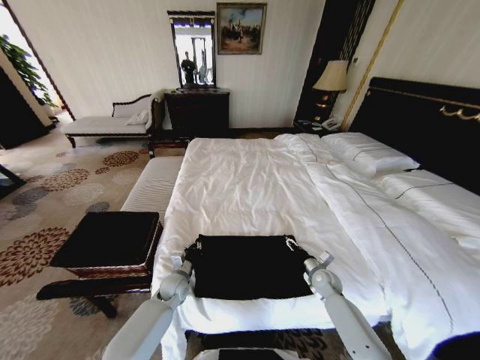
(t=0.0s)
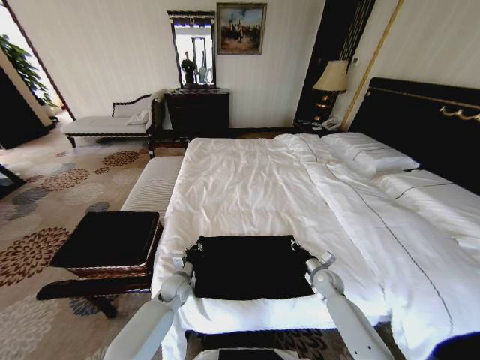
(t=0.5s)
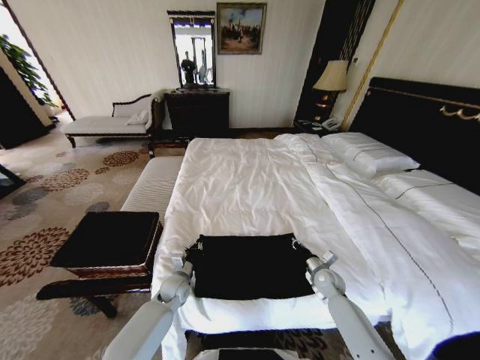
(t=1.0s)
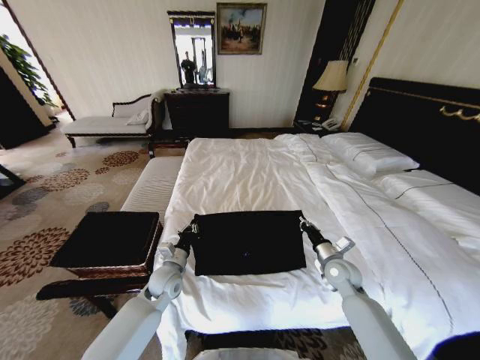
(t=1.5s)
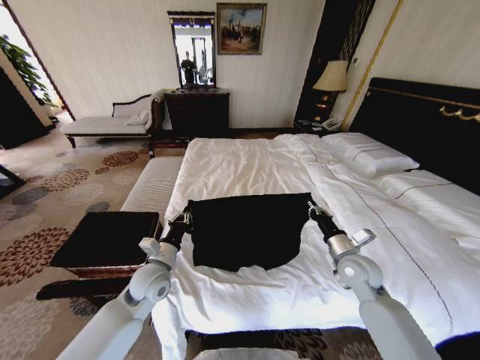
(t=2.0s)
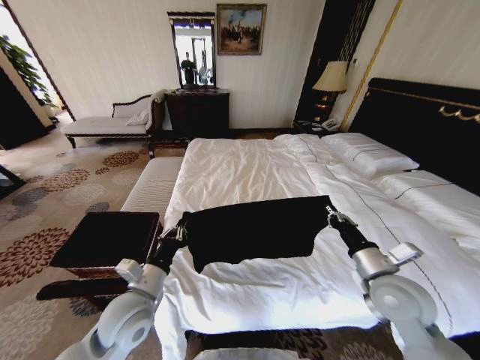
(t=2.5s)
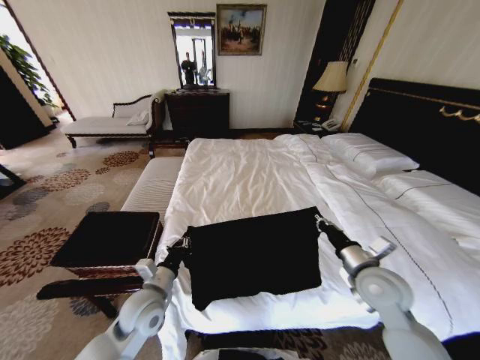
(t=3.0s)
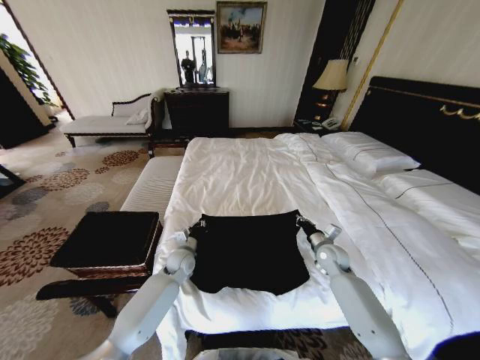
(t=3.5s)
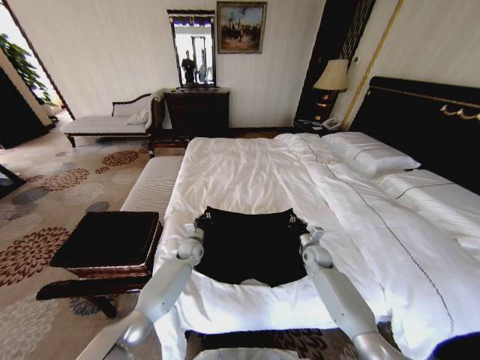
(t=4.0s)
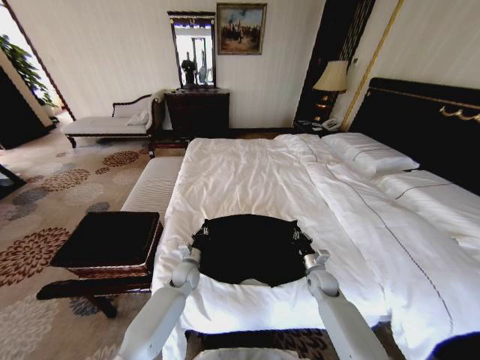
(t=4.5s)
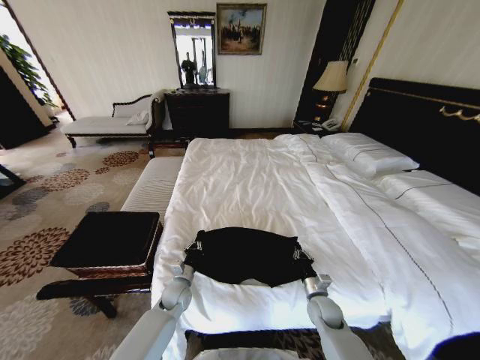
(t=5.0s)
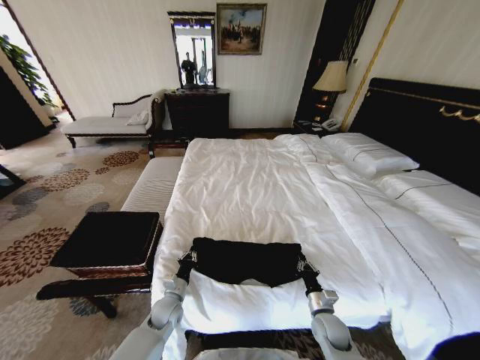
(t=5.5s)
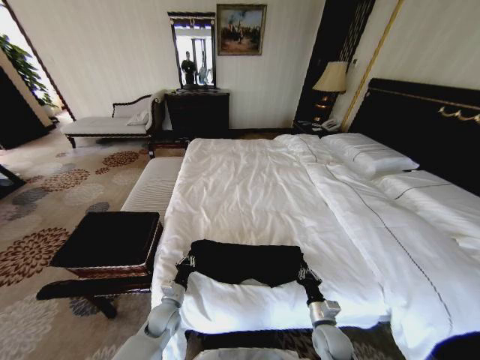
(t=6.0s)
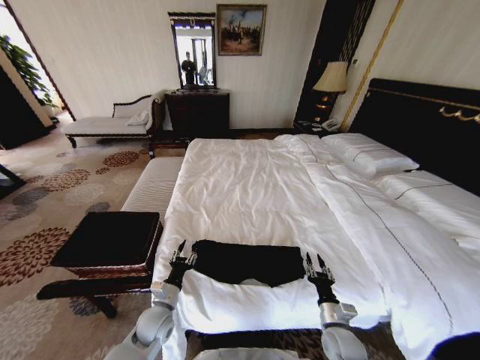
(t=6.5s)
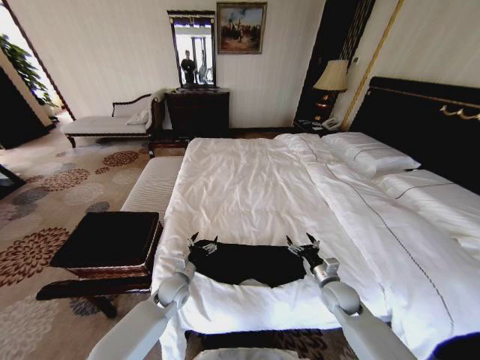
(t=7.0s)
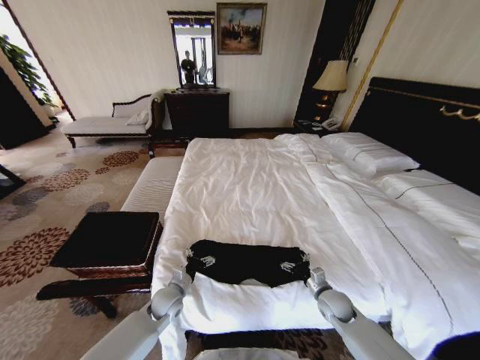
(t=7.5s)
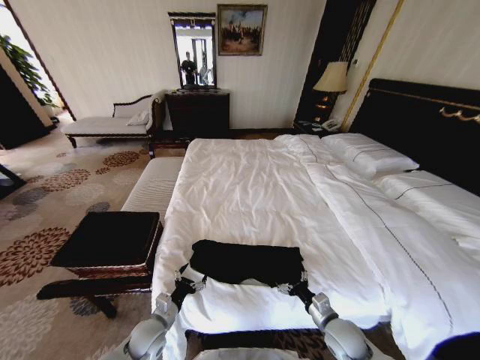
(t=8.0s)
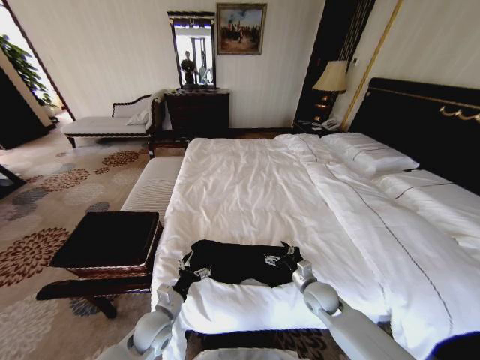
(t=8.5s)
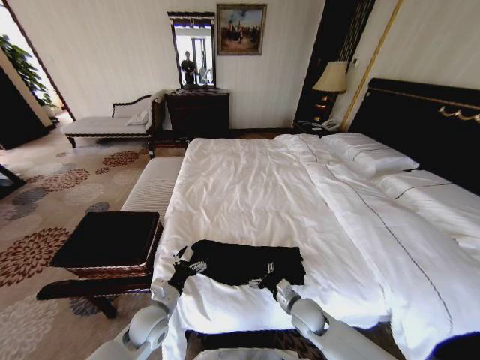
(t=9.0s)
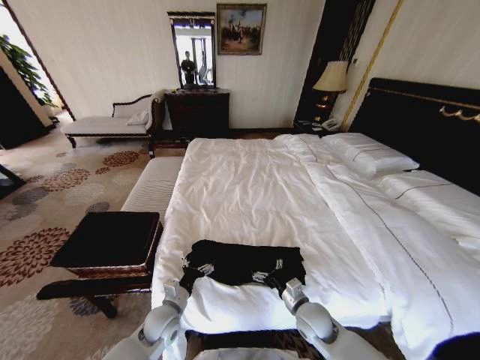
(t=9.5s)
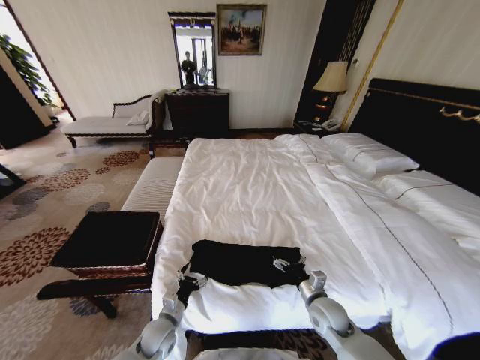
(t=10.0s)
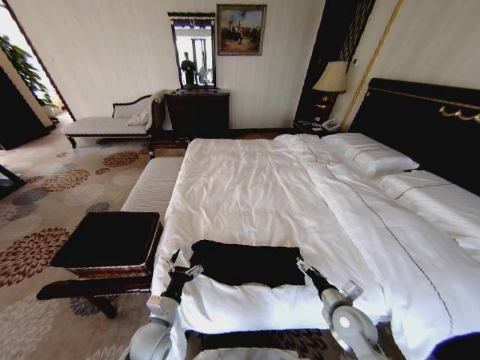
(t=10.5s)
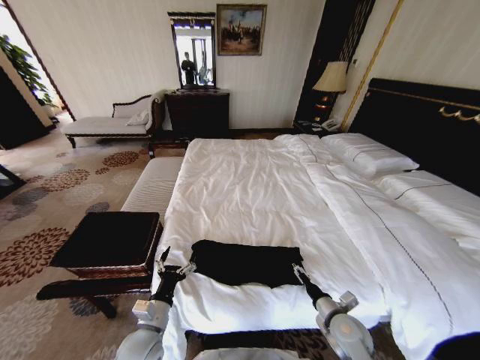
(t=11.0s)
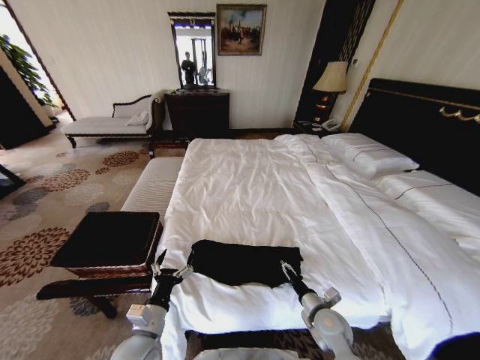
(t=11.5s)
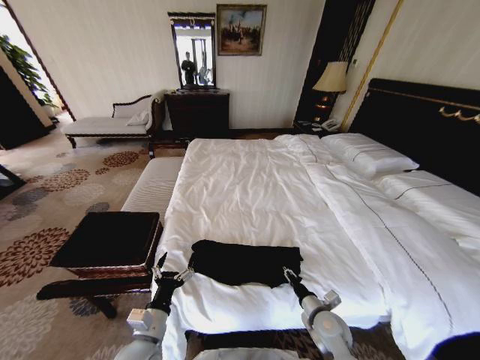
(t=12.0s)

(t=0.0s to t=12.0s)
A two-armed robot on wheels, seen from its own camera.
Task of the whole recording: Fold the clothes on the bed and place them into the basket.
t=0.0s - t=2.0s: The two grippers go some 20 cm upward. The right gripper closes up.
t=2.0s - t=4.0s: The left gripper moves forward and downward, some 20 cm. Meanwhile the right gripper moves downward and forward, roughly 20 cm.
t=4.0s - t=6.0s: The two grippers go approximately 25 cm backward.
t=6.0s - t=8.0s: The left gripper ends up approximately 5 cm from where it was, and opens up. Meanwhile the right gripper travels forward and back again, about 10 cm each way, and opens its fingers.
t=8.0s - t=10.0s: The left gripper reaches about 5 cm upward, then returns.
t=10.0s - t=12.0s: The right gripper closes up; the left gripper travels upward and backward by roughly 15 cm.

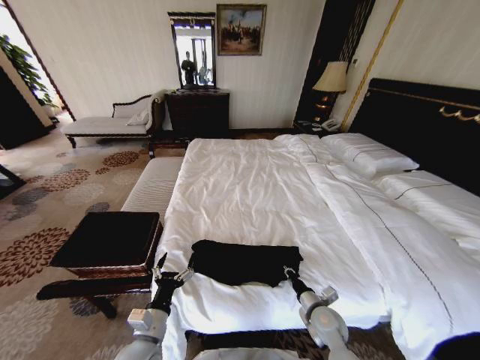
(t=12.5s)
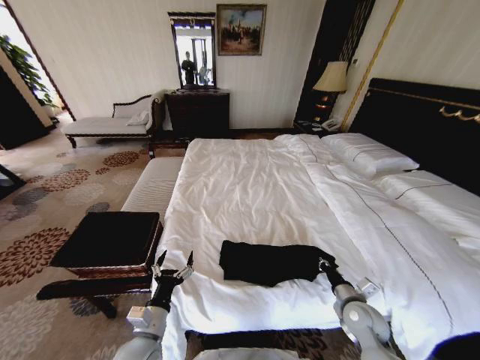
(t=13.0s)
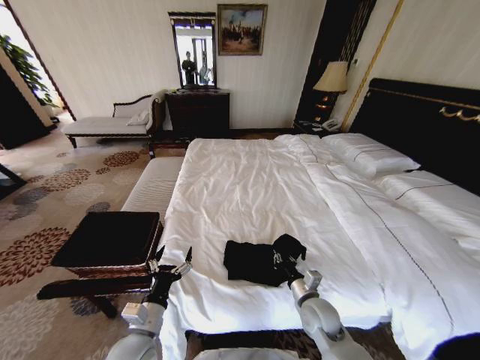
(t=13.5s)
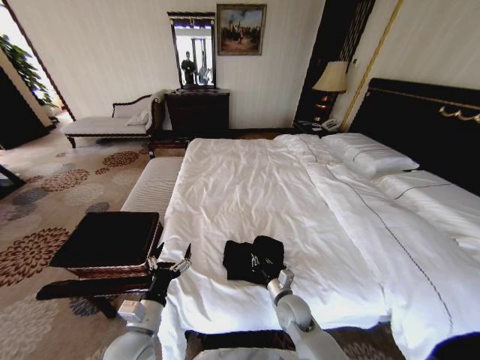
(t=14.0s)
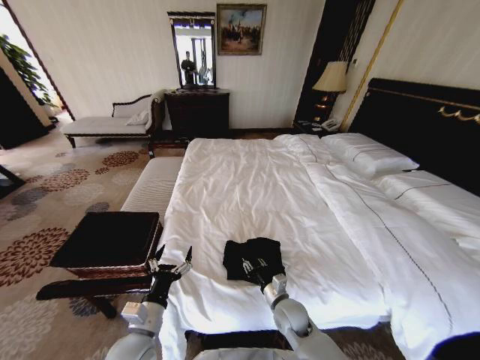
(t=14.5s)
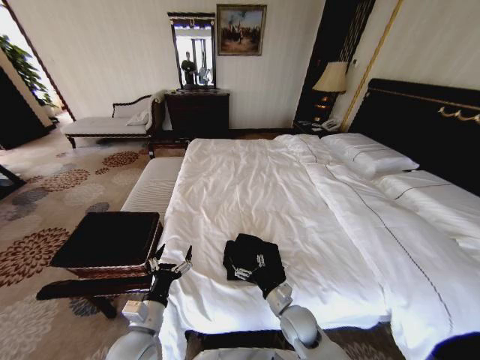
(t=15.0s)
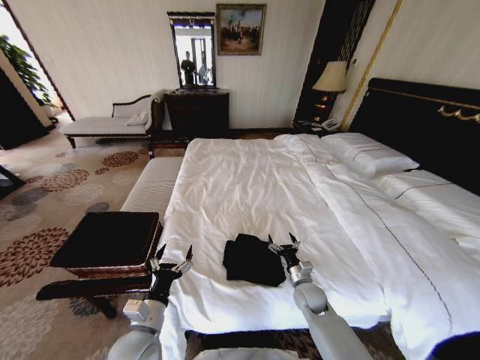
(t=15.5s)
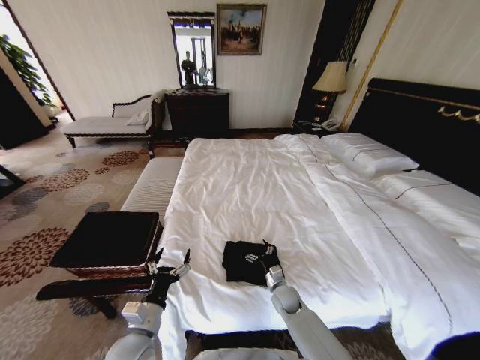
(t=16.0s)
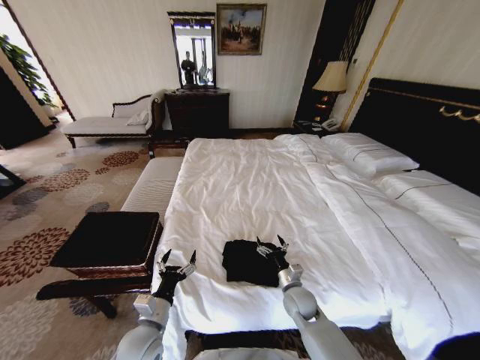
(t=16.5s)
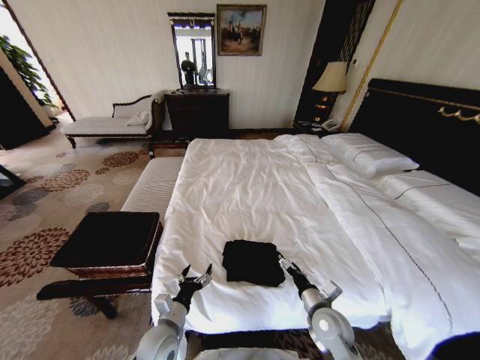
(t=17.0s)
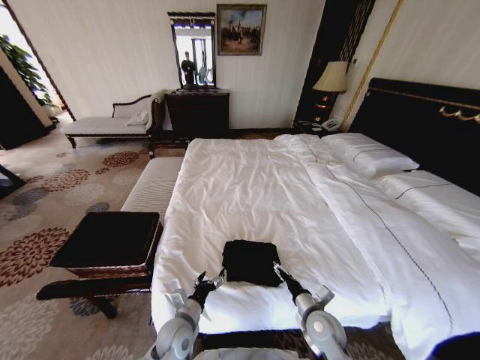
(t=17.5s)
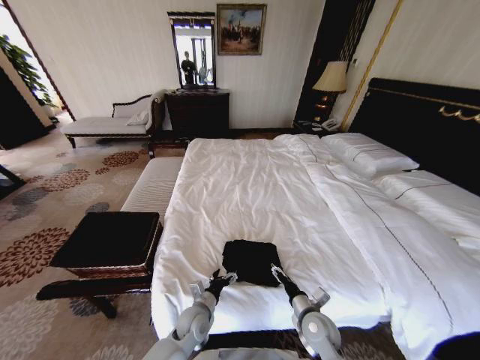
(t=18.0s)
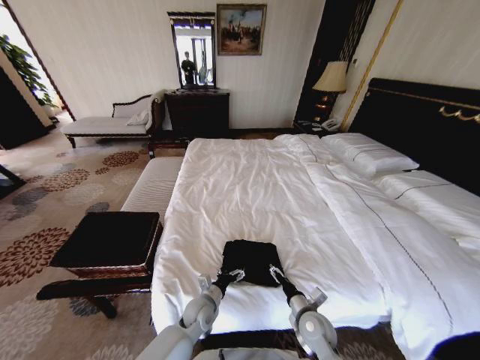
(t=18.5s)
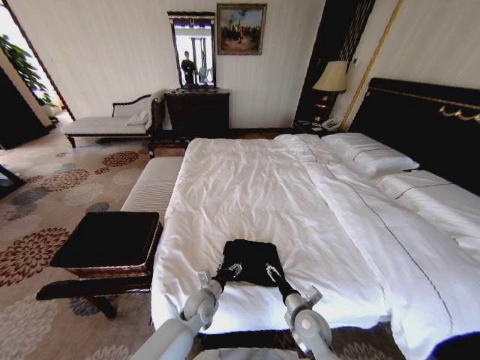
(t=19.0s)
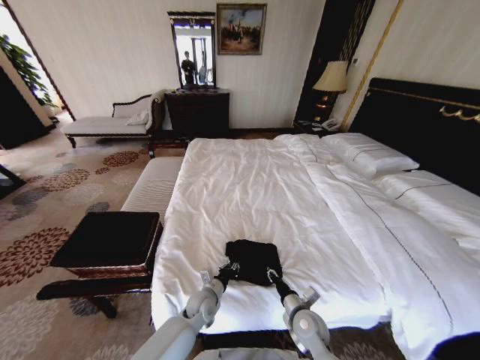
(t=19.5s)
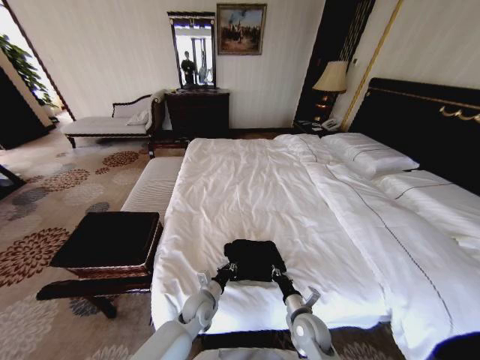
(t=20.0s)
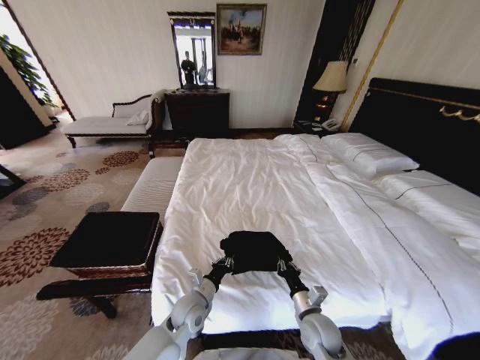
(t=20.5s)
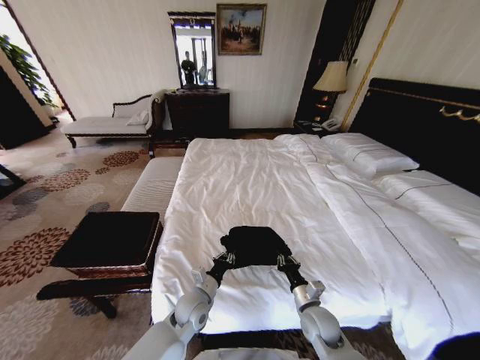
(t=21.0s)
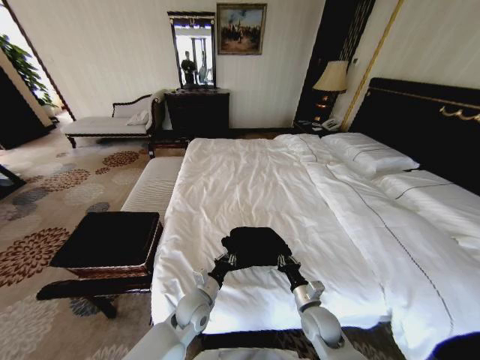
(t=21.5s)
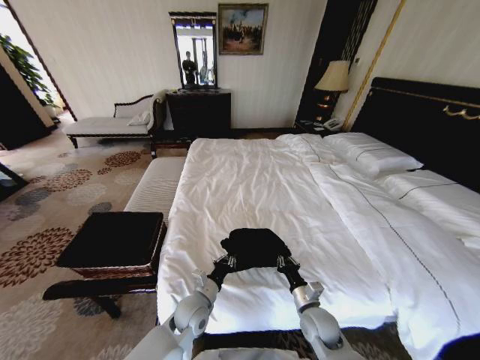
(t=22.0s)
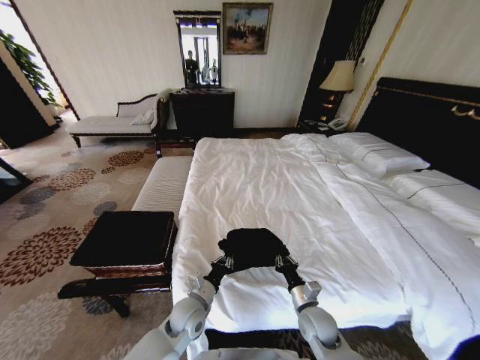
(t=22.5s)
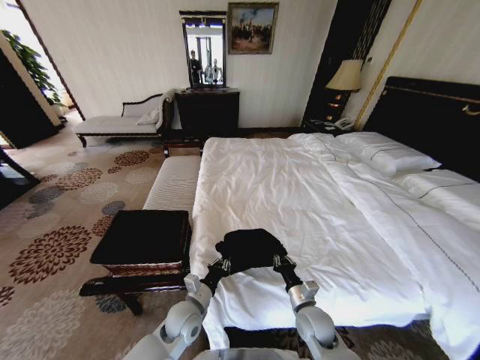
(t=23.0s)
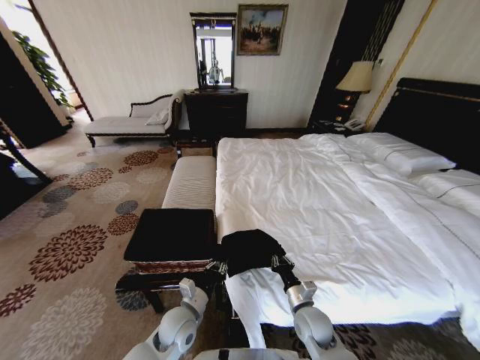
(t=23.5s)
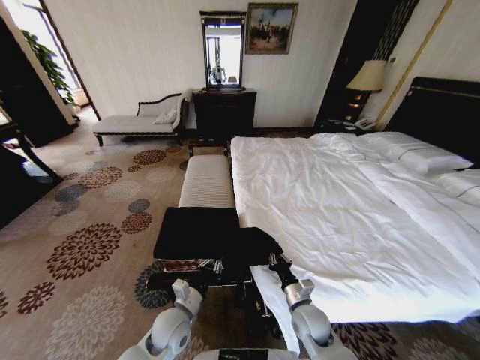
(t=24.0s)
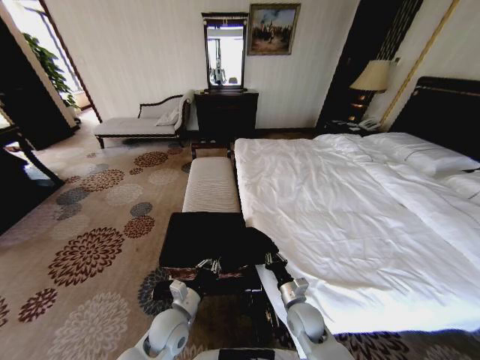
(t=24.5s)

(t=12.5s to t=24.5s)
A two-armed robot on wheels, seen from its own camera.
Task of the whole recording: Fold the clothes on the bed and place them into the basket.
t=12.5s - t=14.5s: The right gripper travels to the left by roughly 10 cm.
t=14.5s - t=16.5s: The right gripper opens its fingers.
t=16.5s - t=18.5s: The left gripper shifts roughly 20 cm to the right, downward and forward, while the right gripper shifts roughly 5 cm backward.
t=18.5s - t=20.5s: The right gripper closes its fingers; the left gripper is displaced upward by approximately 5 cm, and closes up.
t=22.5s - t=24.5s: The left gripper ends up some 5 cm from where it was.

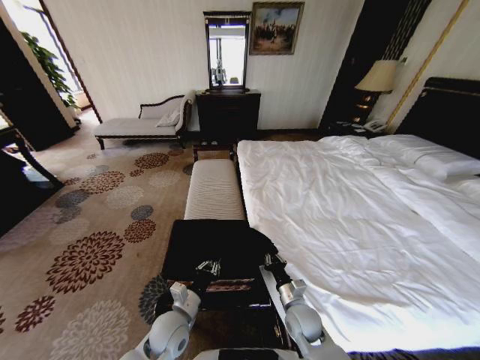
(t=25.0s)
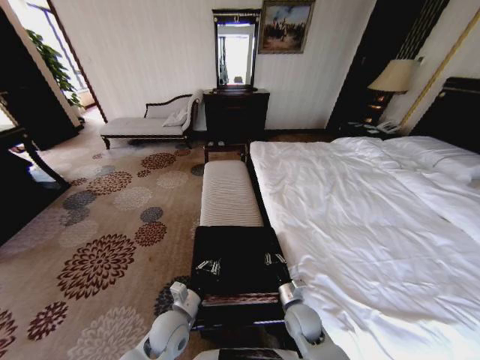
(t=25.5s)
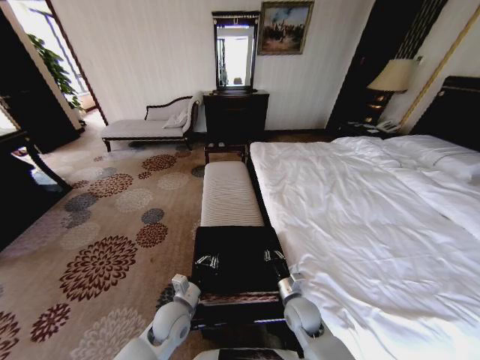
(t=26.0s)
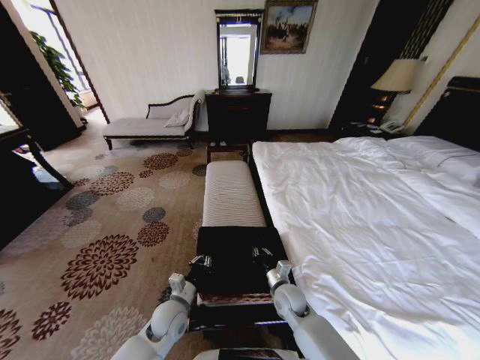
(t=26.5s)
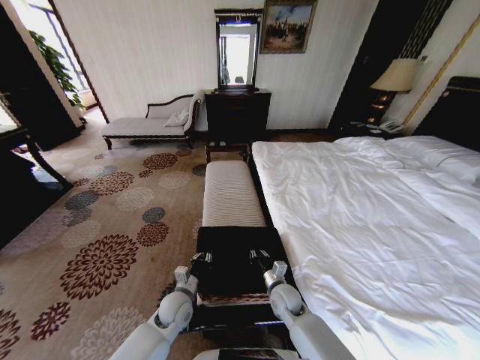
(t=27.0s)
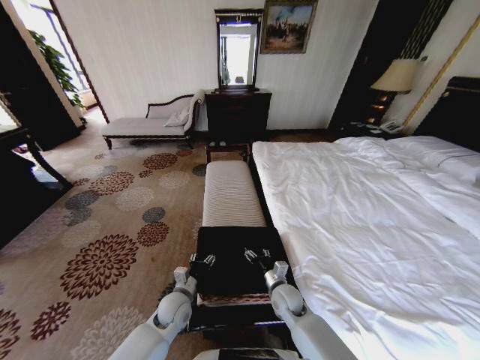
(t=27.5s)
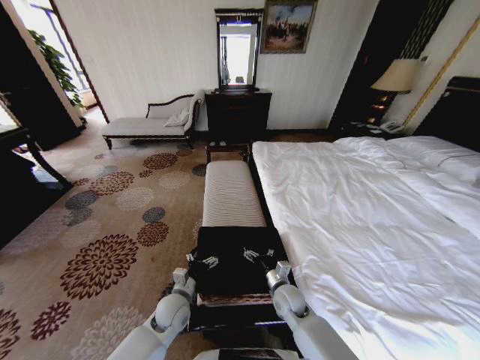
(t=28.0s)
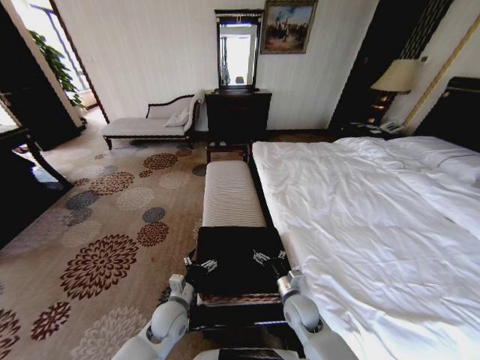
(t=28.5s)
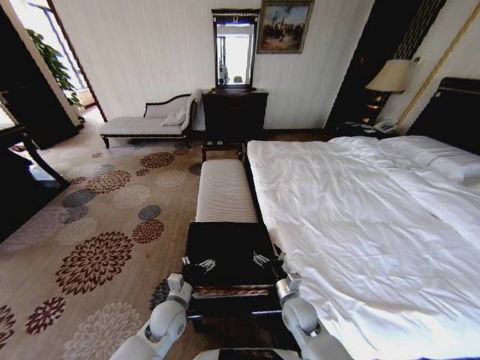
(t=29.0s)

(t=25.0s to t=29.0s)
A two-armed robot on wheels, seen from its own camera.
Task of the whole recording: Fold the clothes on the bed and place them into the basket.
t=25.0s - t=27.0s: Both grippers travel together forward, some 5 cm.
t=27.0s - t=29.0s: The right gripper shifts by approximately 5 cm, and opens up. The left gripper opens.
